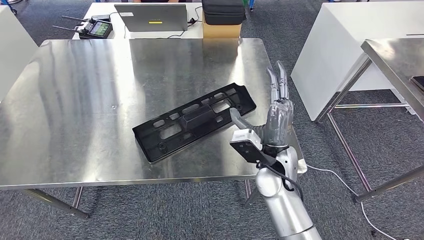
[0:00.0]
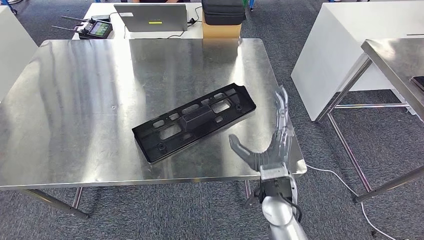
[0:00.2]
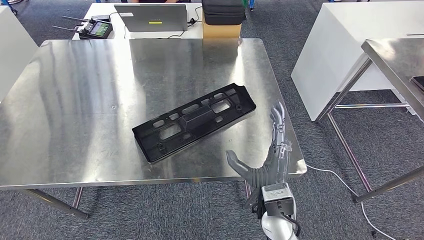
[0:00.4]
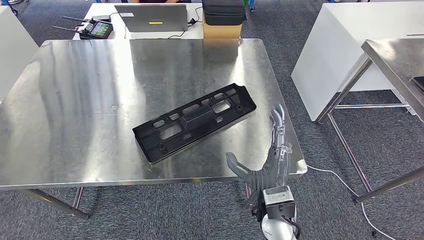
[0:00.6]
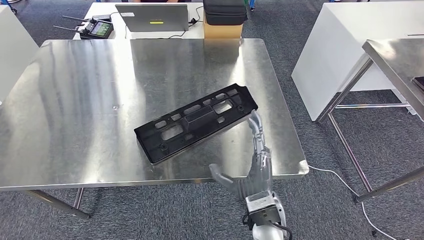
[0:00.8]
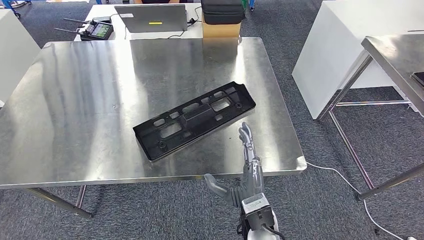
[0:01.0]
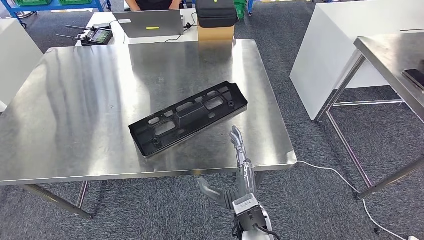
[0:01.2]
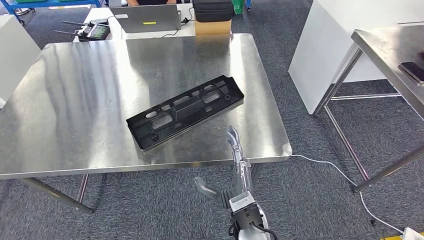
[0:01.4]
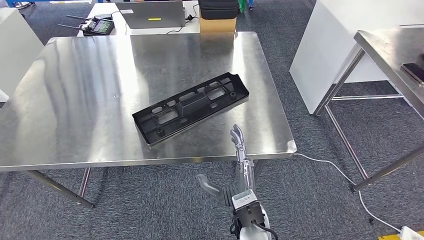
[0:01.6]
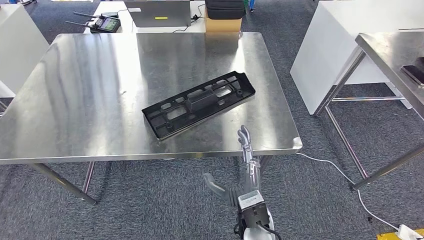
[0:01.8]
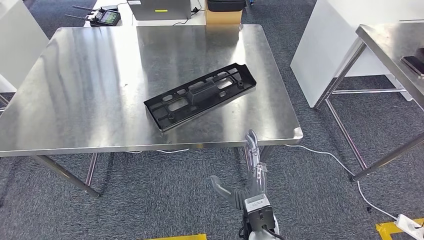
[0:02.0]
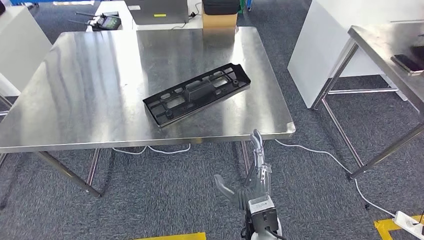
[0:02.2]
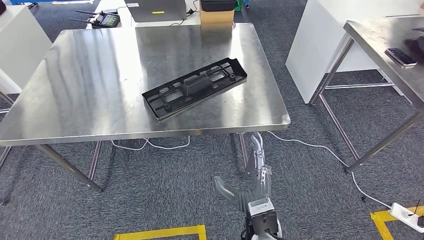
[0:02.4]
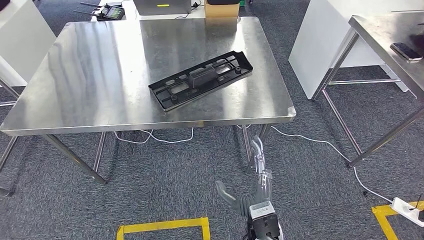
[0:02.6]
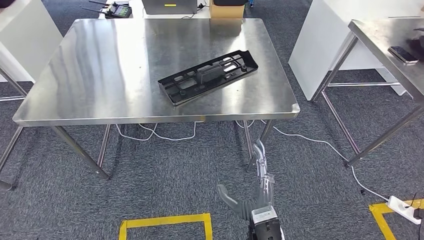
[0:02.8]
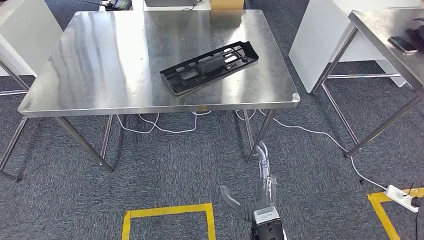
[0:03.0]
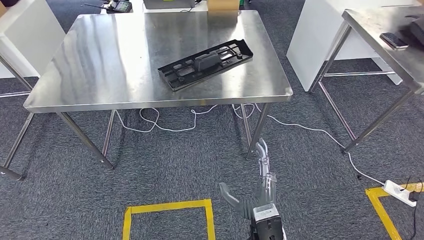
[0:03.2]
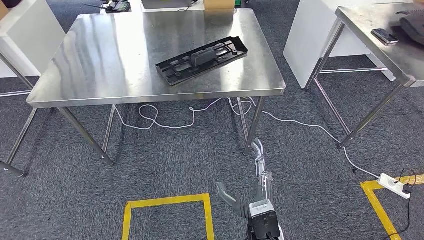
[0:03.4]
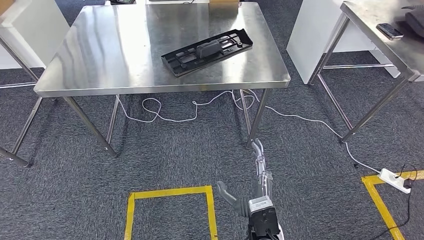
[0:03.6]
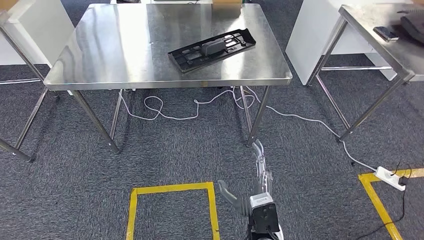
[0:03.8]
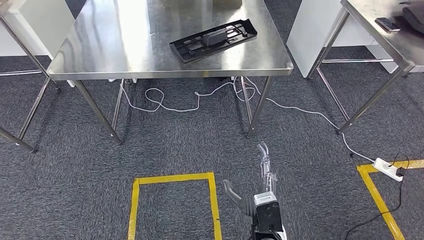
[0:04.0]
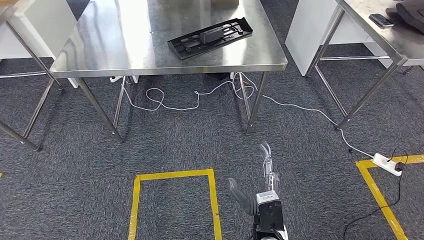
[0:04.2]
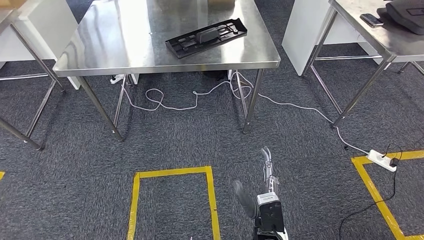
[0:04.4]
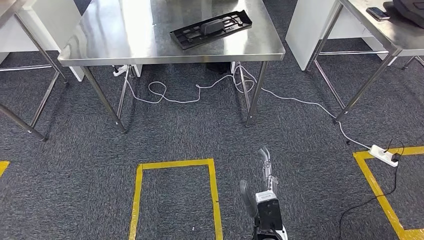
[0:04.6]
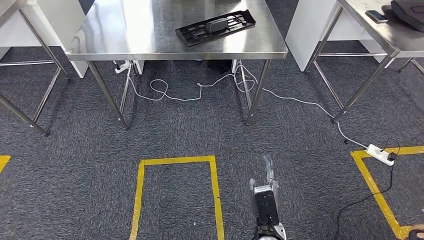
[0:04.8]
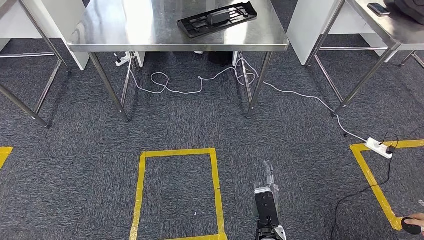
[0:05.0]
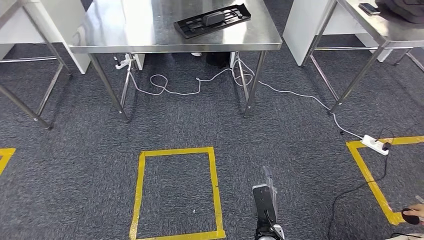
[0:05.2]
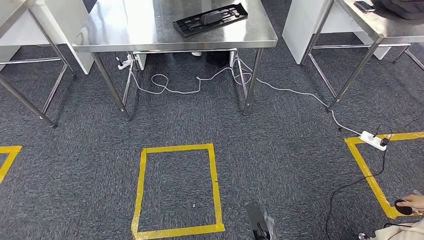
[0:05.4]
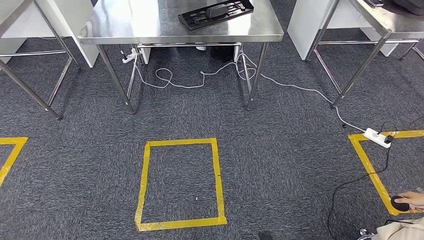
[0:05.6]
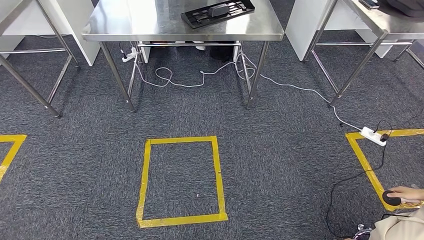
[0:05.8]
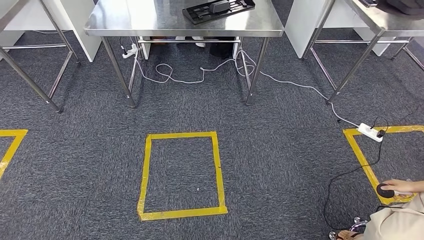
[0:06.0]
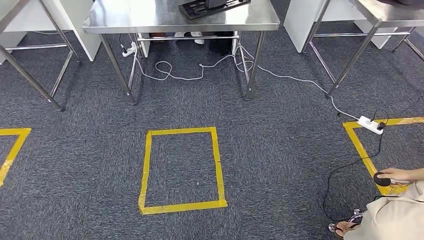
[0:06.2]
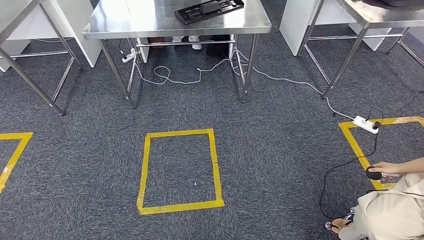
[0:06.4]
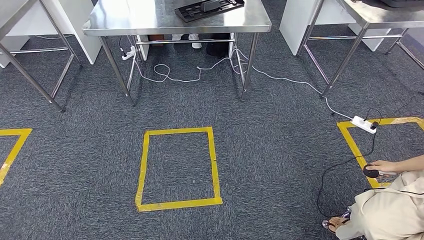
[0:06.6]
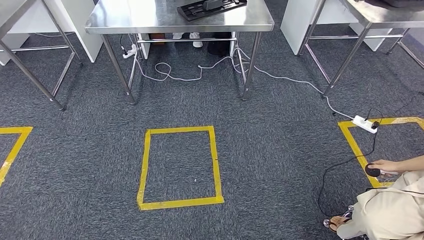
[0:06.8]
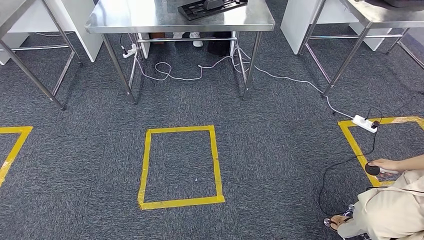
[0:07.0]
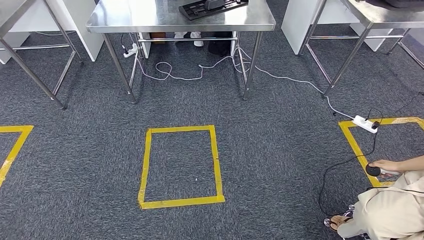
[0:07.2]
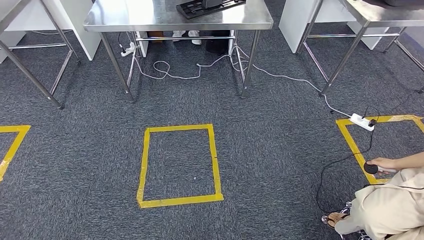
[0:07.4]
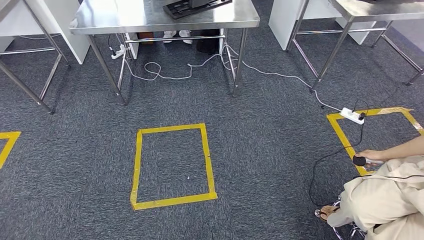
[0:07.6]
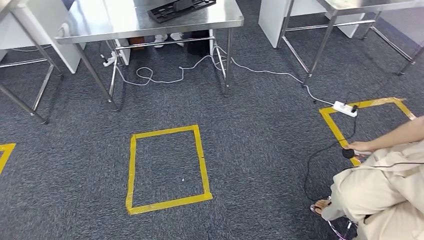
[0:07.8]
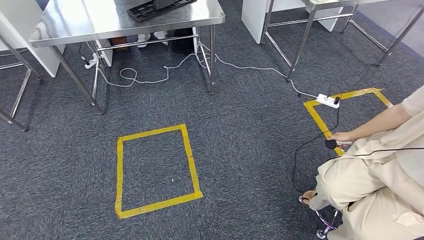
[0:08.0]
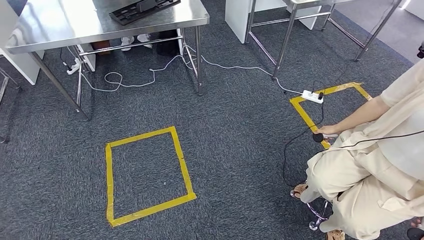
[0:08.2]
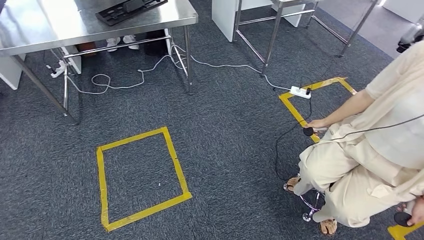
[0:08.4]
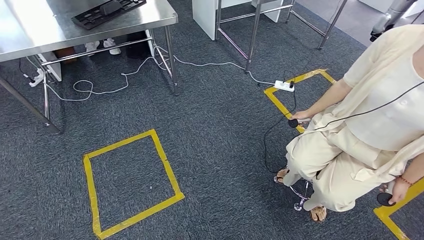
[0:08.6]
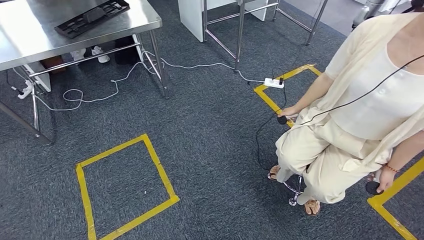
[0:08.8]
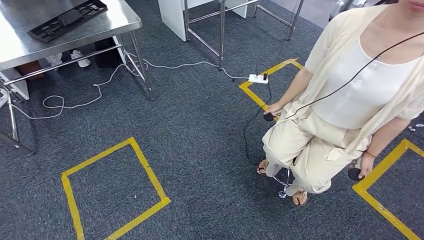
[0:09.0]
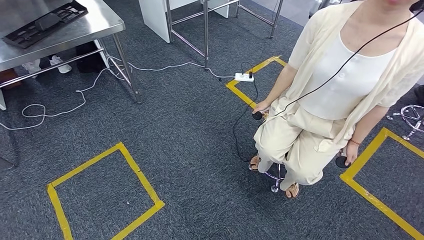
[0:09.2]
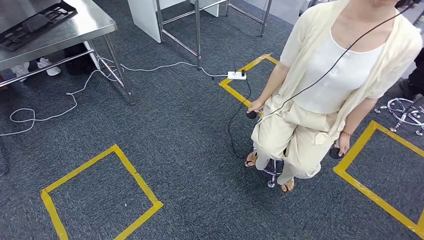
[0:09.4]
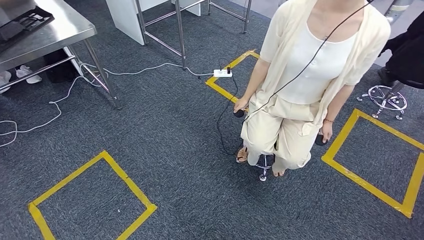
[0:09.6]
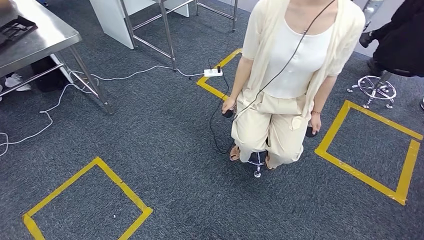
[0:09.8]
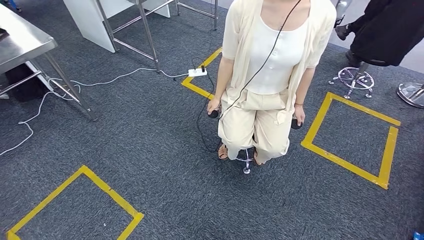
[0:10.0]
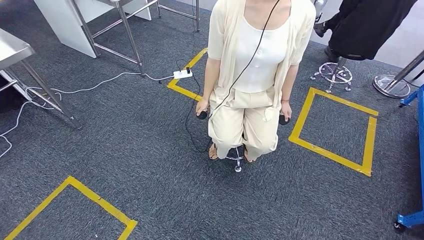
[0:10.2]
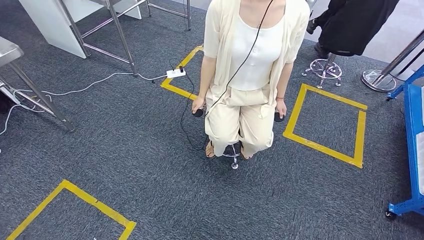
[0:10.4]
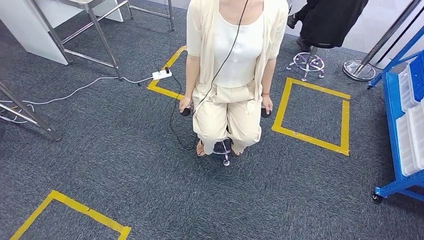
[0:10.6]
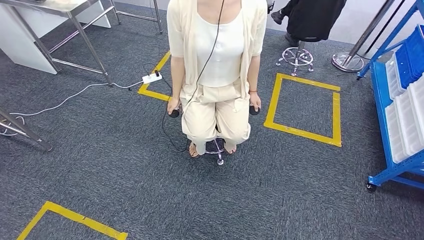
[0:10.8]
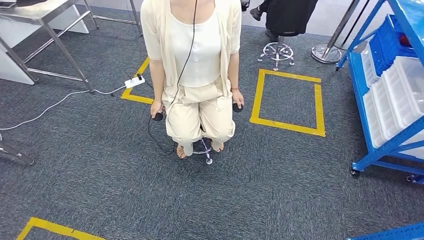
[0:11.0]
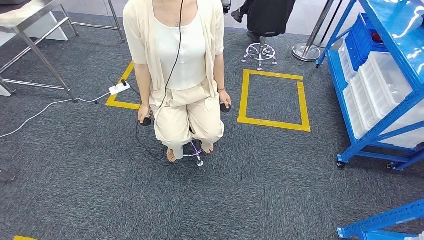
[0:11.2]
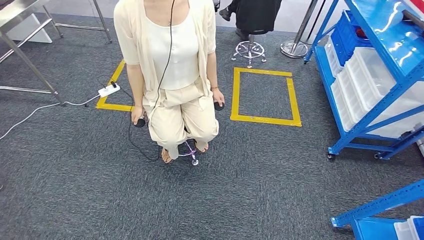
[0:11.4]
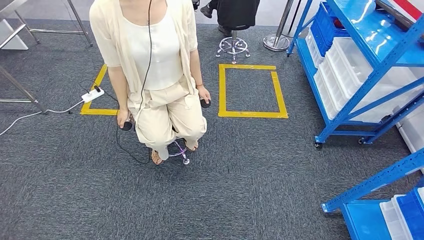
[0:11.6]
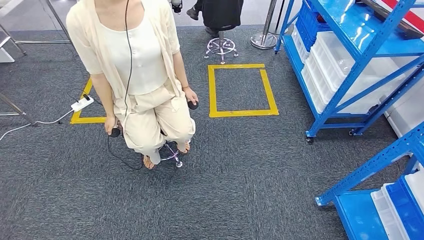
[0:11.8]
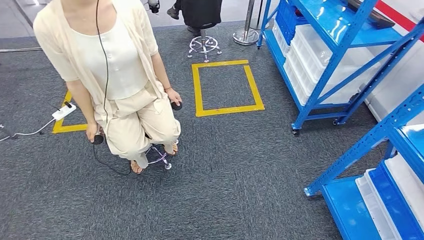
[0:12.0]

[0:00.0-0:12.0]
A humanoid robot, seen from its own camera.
Step, 0:00.0 to 0:05.8: Insert the large parts into the corresponding slots on the workbench.

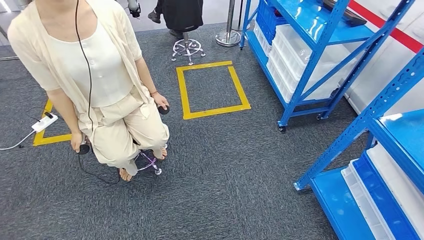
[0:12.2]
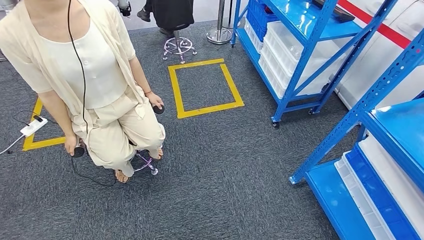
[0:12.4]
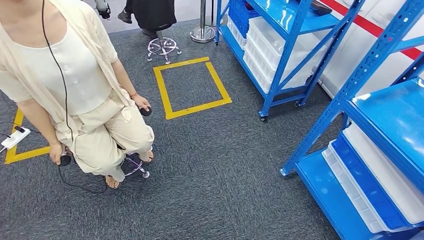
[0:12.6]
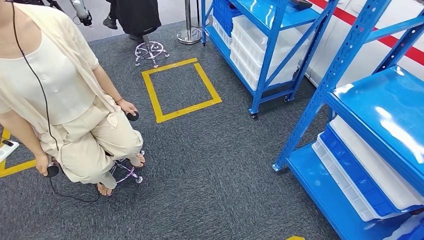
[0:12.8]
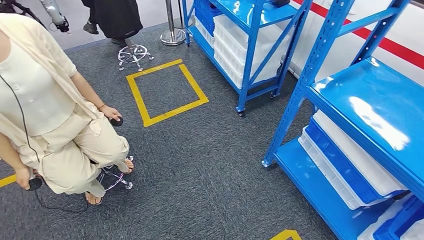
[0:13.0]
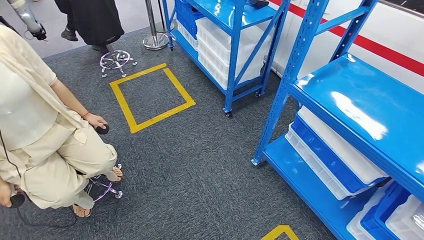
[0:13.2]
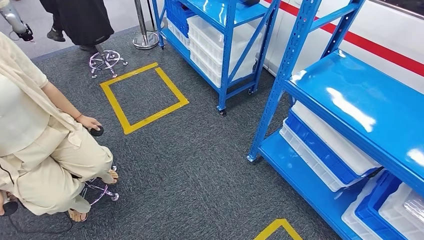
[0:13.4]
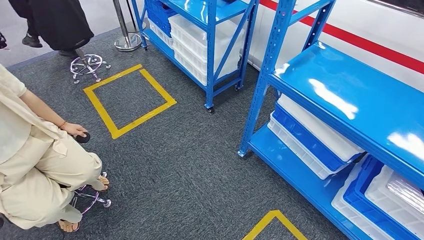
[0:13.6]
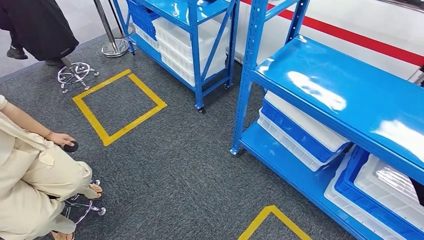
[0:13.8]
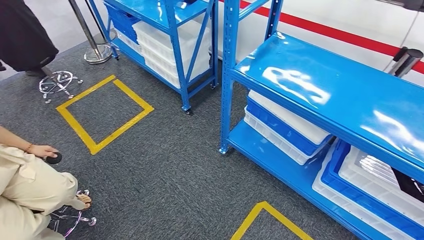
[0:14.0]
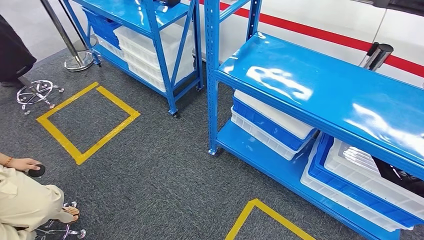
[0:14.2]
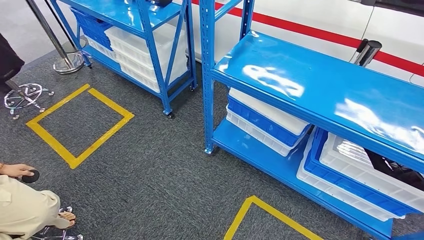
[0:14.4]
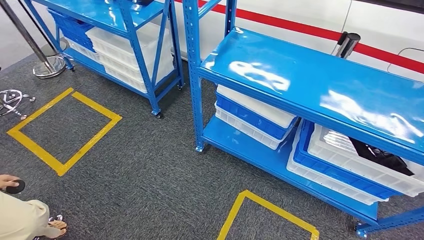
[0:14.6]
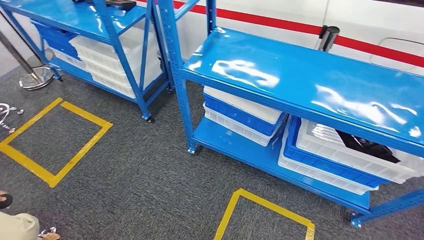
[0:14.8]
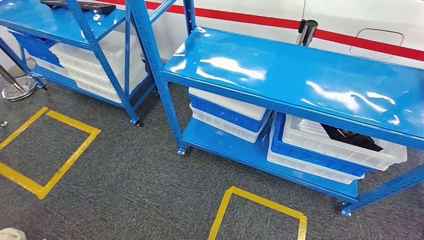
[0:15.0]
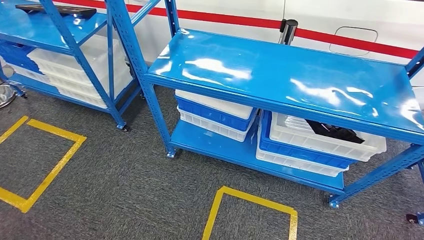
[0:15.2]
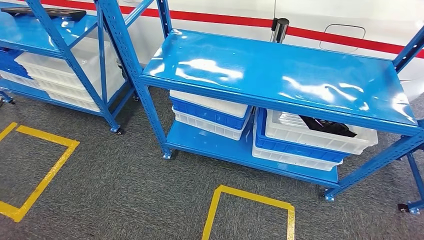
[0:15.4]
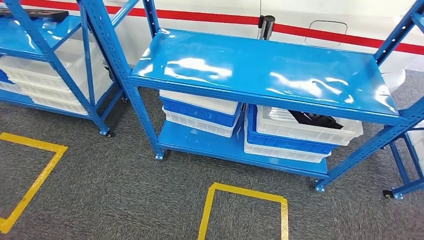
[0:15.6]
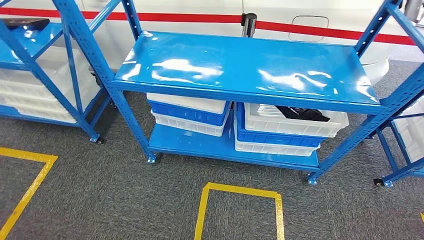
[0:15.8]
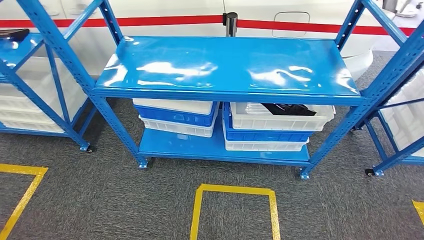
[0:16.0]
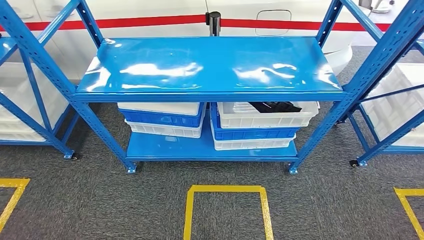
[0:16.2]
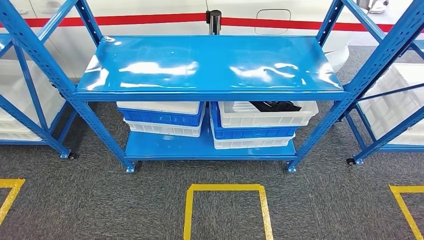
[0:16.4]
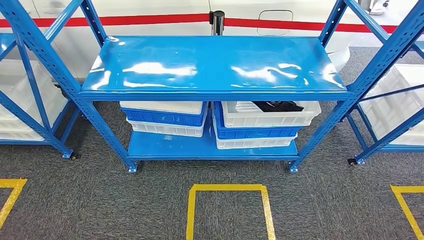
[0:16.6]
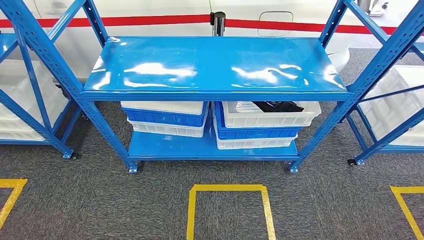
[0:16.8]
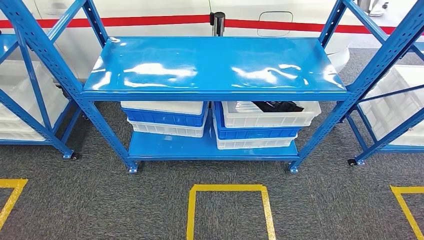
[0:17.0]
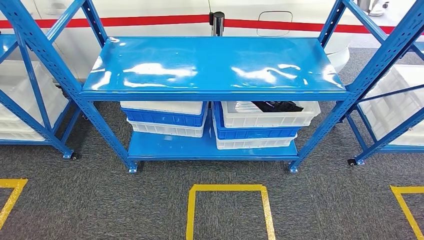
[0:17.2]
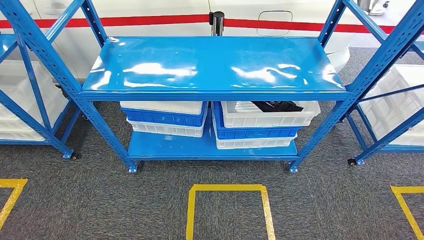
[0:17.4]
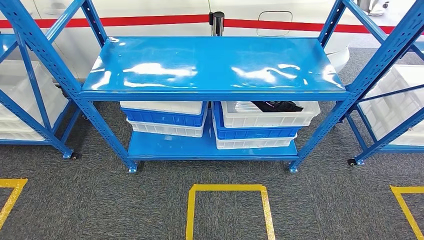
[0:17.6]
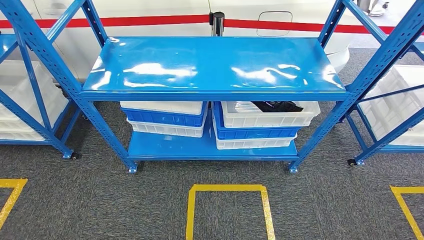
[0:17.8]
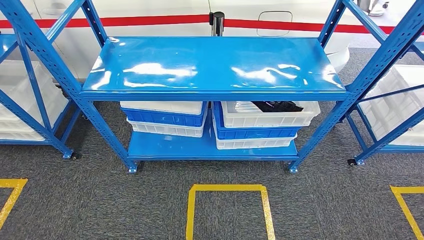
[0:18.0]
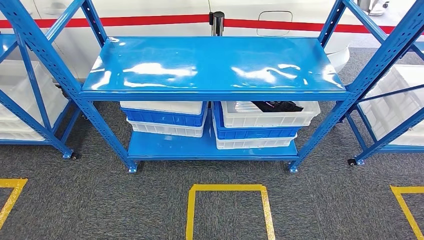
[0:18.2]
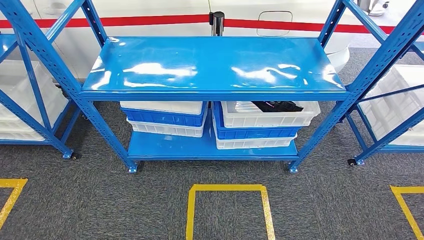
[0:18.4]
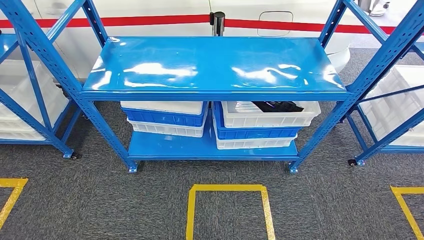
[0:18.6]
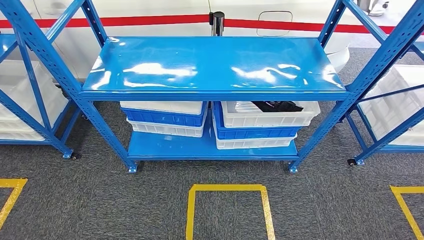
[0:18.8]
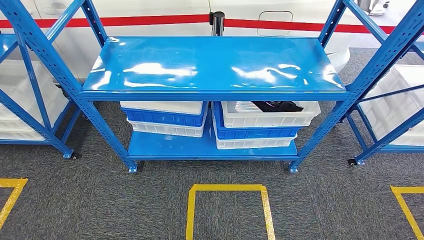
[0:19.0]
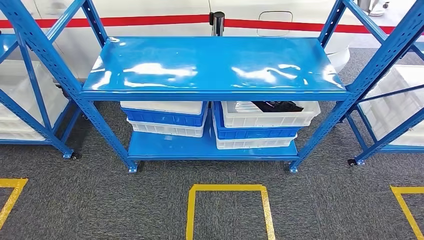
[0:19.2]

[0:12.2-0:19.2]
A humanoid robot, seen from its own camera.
Step, 0:12.2 to 0:19.0: Return to the initial position at the shelf.
0:16.4 to 0:17.8: The hands make only small movements.
